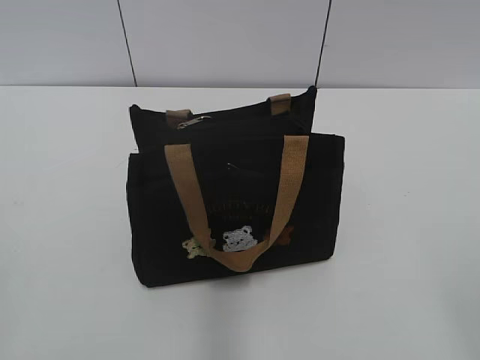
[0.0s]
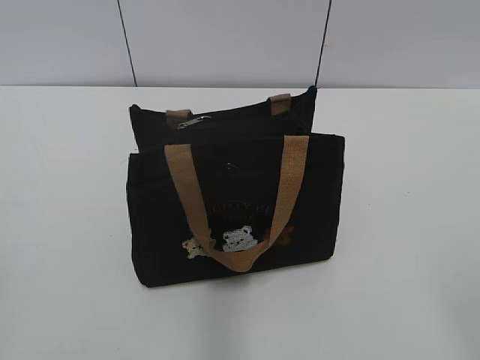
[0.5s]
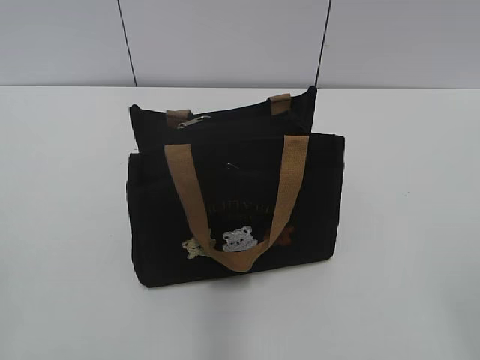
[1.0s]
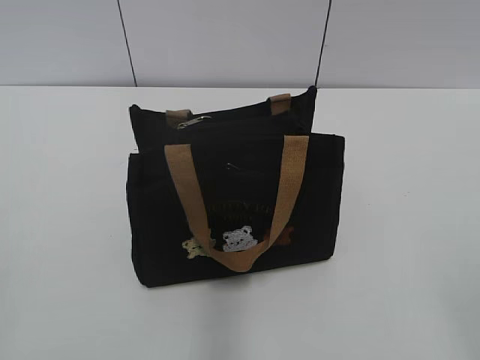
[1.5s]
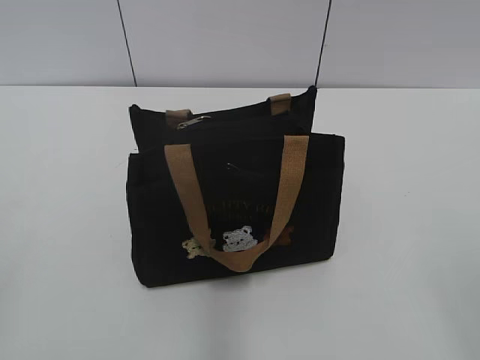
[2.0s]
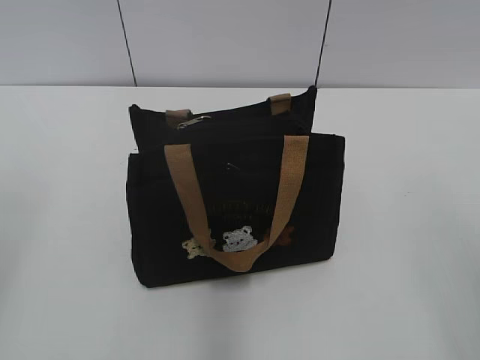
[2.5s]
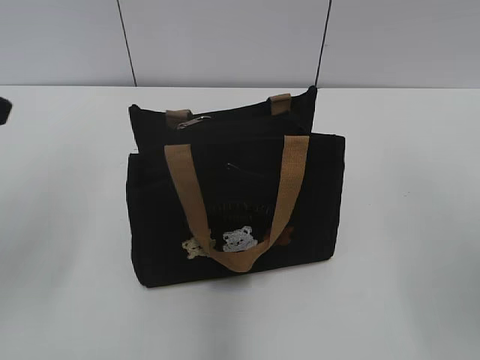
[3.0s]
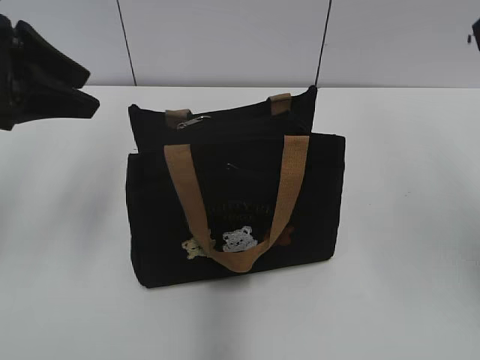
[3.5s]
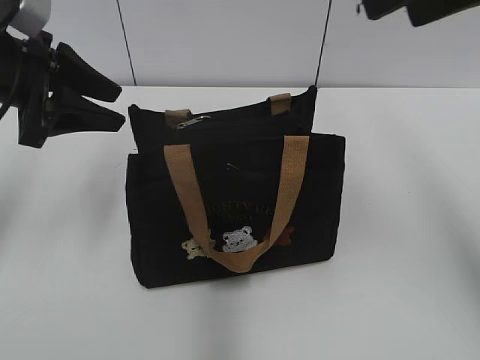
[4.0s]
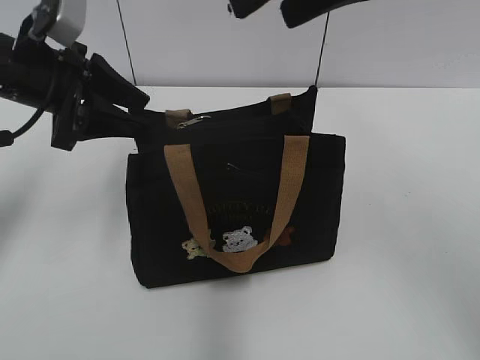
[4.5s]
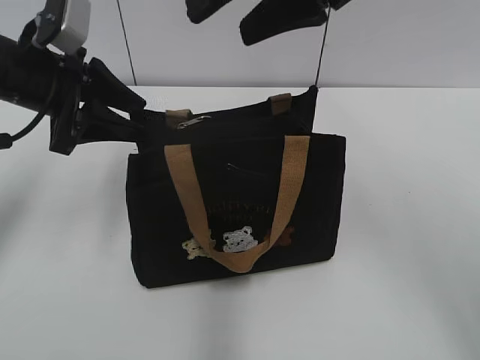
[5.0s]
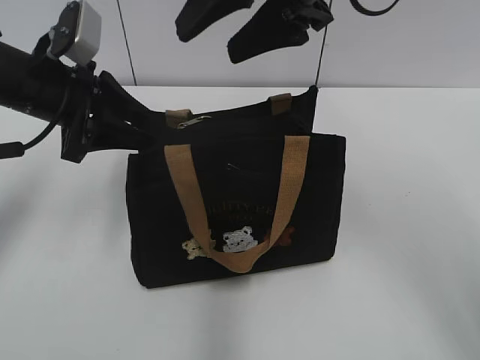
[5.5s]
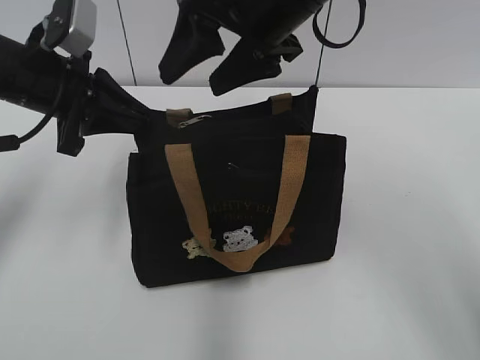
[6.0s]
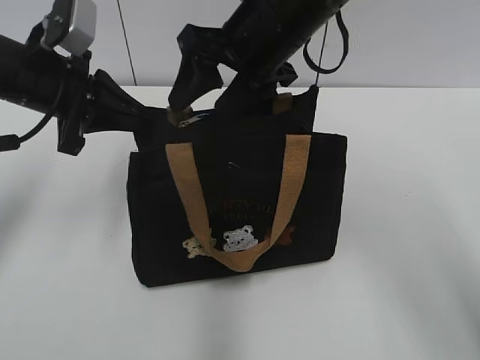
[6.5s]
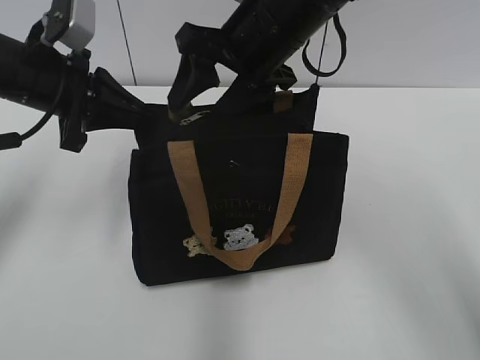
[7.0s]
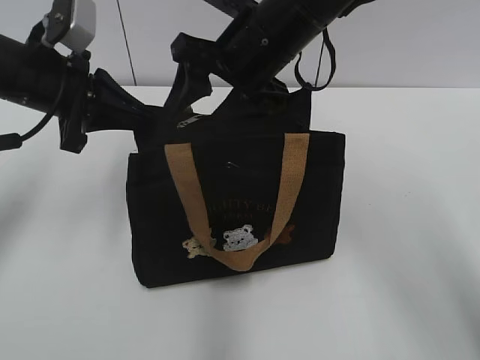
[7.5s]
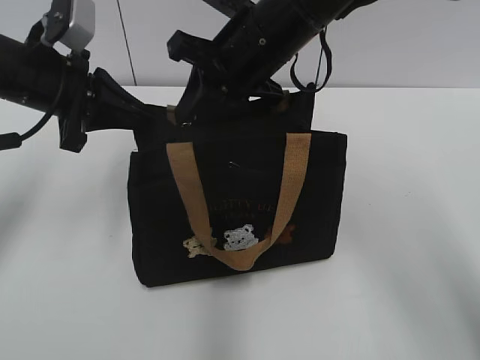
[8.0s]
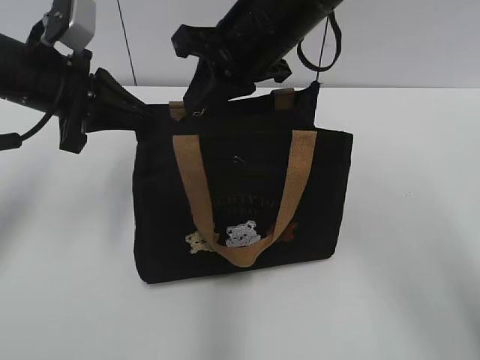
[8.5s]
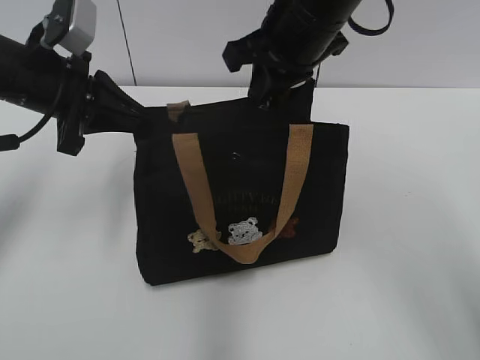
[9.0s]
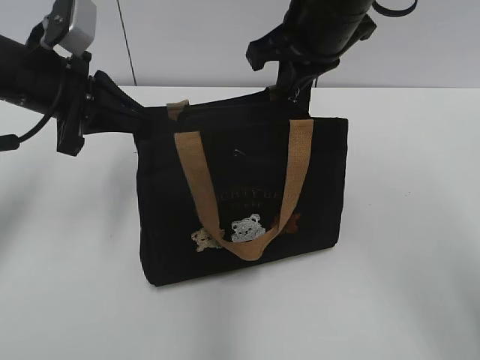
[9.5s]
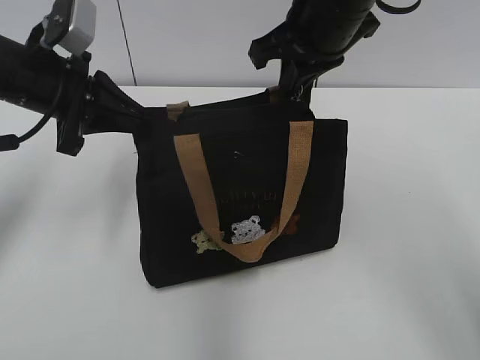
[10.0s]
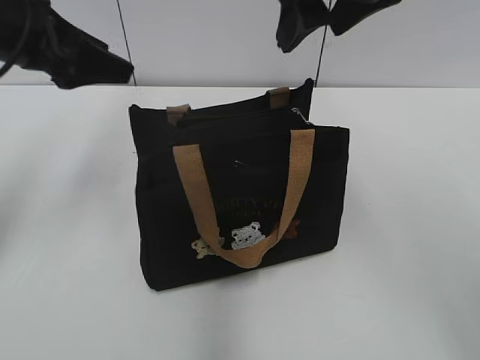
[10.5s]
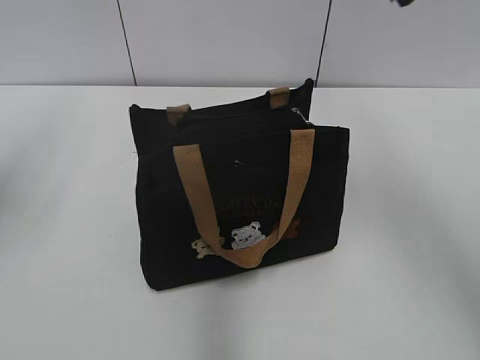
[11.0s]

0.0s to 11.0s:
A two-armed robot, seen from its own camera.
Step, 0.0s to 10.0s: Pull open the zipper with your right hand.
2.0s to 3.5s: The right gripper moves forward and upward, about 25 cm. The left gripper is displaced forward by approximately 30 cm.
3.5s to 5.5s: The left gripper travels downward and forward by about 10 cm. Meanwhile the right gripper shifts some 20 cm to the left and forward.
5.5s to 7.5s: The right gripper heads downward, covering about 10 cm. The left gripper closes.
7.5s to 9.0s: The right gripper closes up.
9.0s to 11.0s: The right gripper heads upward, to the right and backward, covering roughly 15 cm, and opens its fingers, while the left gripper shifts about 15 cm upward, to the left and backward, and opens up.

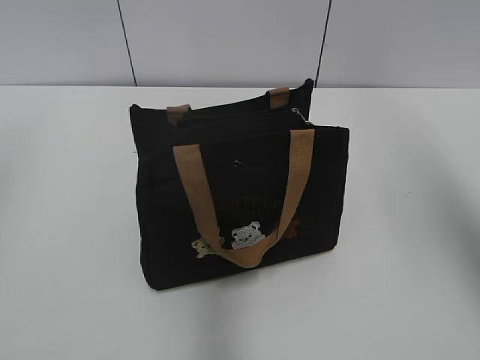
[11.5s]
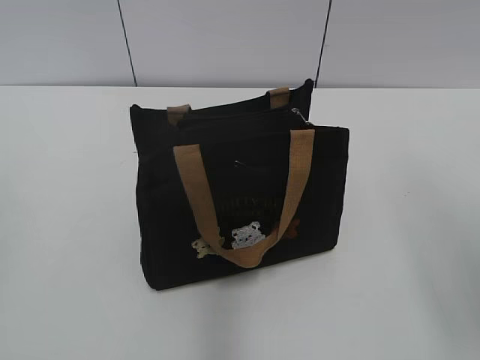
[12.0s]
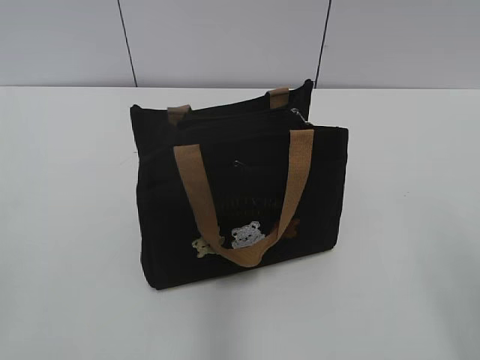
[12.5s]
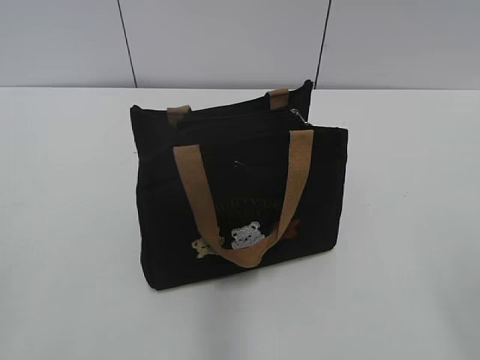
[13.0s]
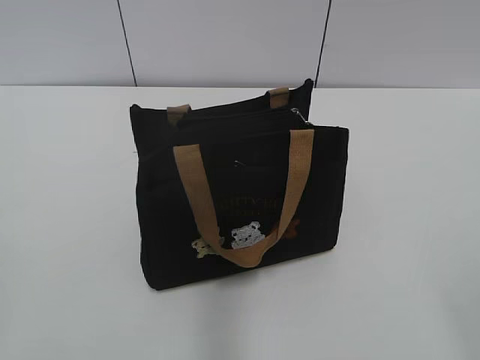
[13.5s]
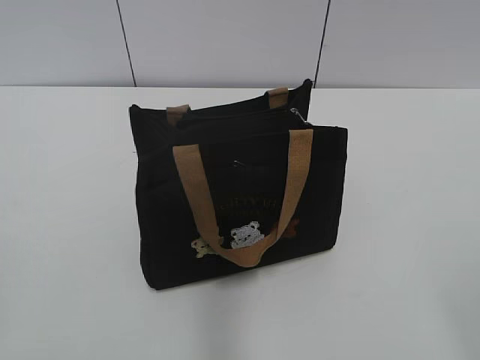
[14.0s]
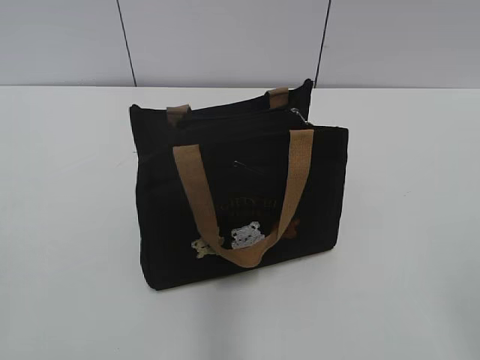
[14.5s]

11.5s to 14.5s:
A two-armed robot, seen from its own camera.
11.5s to 13.0s: The two grippers go some 25 cm backward and downward.
